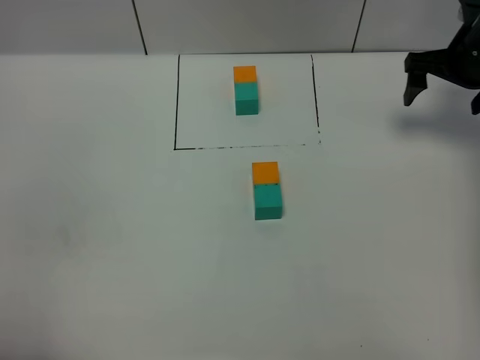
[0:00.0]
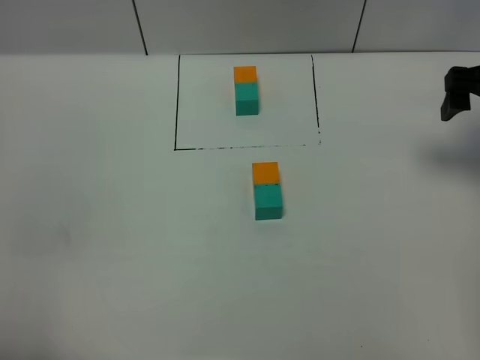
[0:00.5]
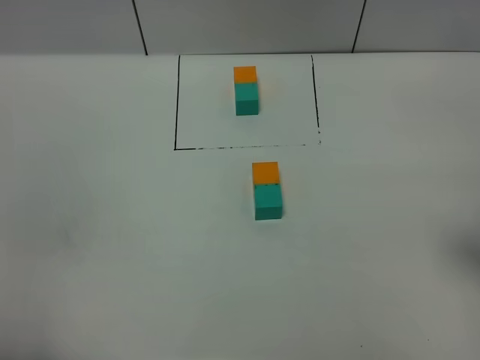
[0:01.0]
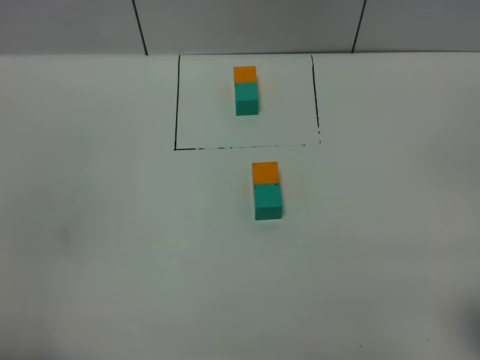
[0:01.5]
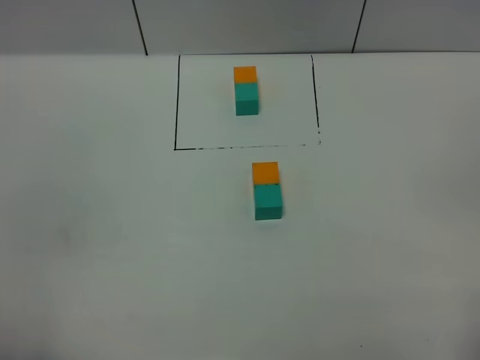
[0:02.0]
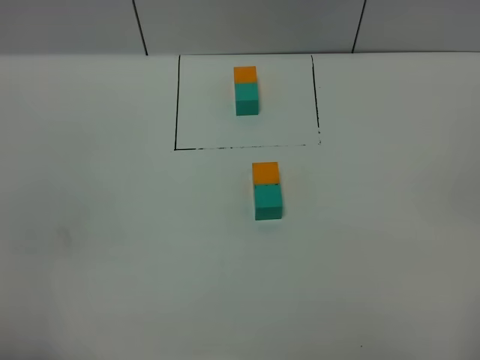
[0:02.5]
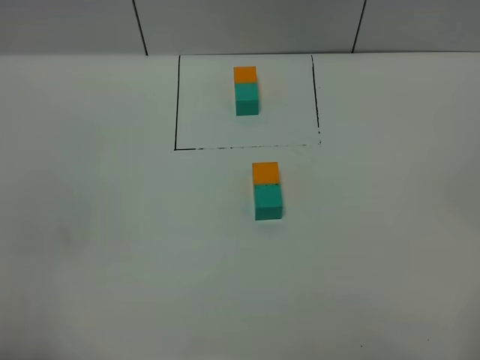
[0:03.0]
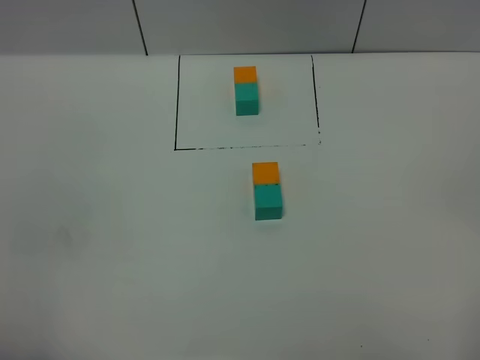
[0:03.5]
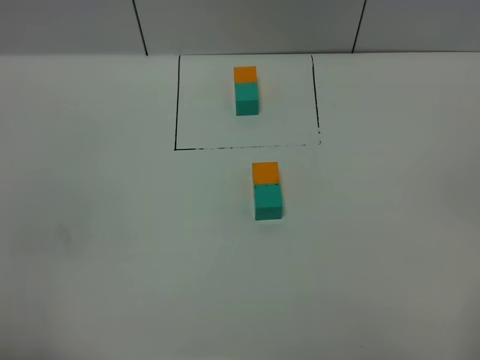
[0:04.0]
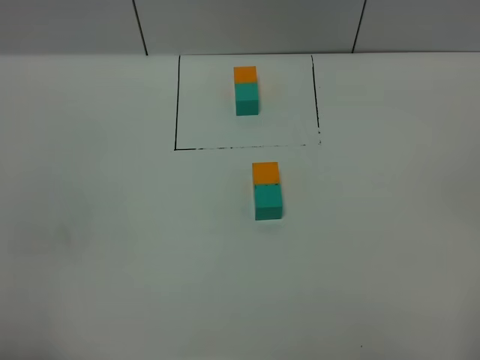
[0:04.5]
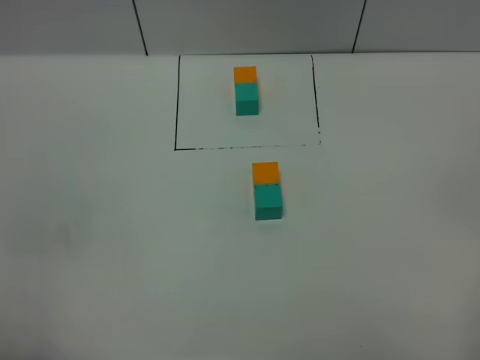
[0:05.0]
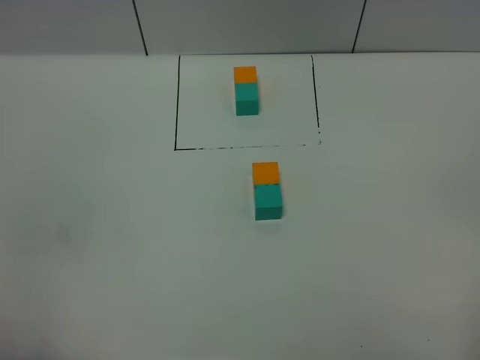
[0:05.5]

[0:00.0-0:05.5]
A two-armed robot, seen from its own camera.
Task of the whole recording: According to the building block template in front, assemble the scattered blocks together.
0:00.0 to 0:02.0: The right gripper moves backward, some 40 cm.
0:03.5 to 0:05.5: The two grippers keep their place.

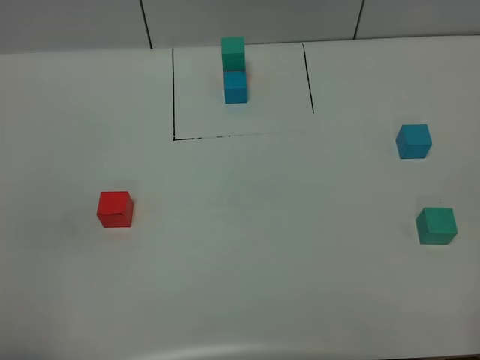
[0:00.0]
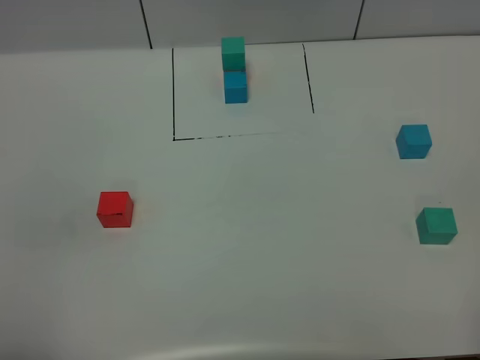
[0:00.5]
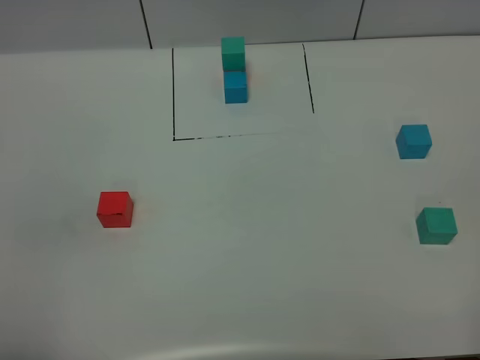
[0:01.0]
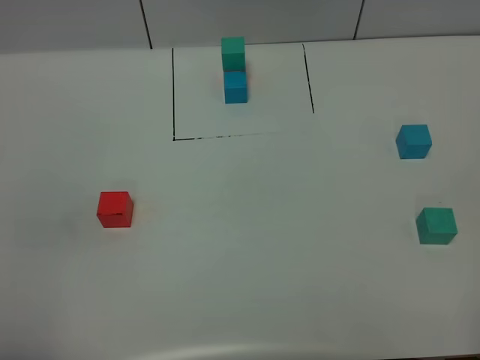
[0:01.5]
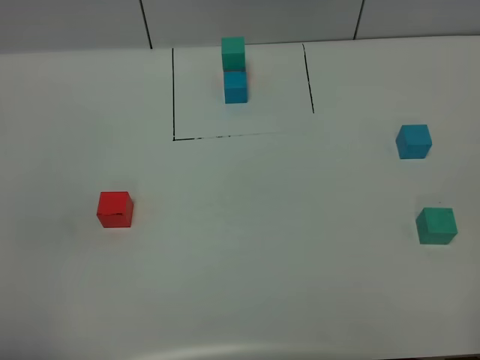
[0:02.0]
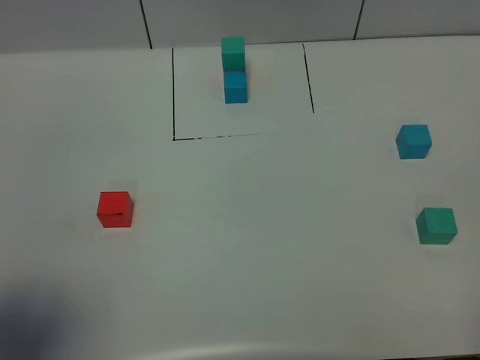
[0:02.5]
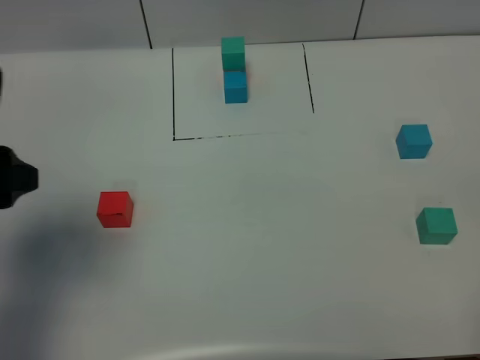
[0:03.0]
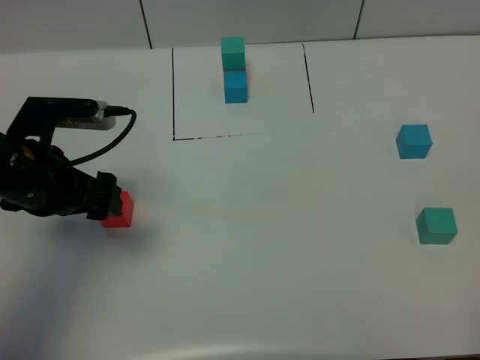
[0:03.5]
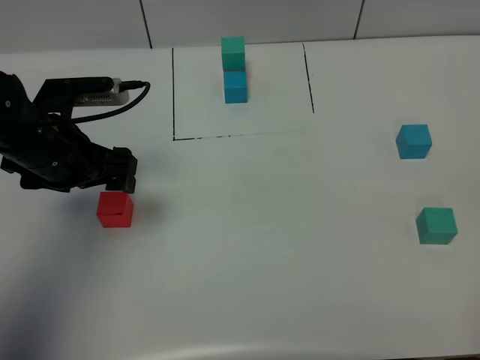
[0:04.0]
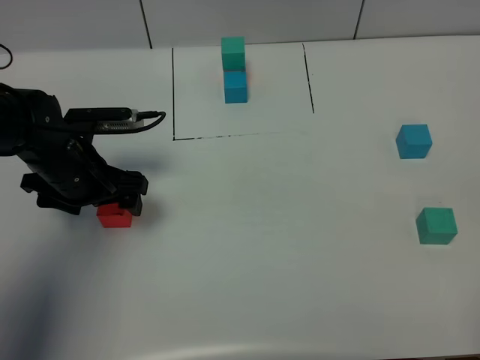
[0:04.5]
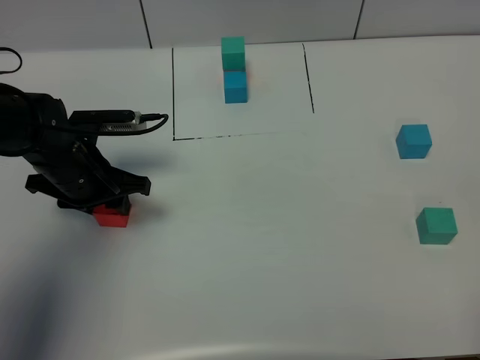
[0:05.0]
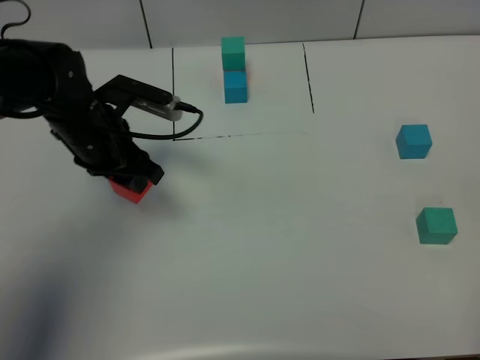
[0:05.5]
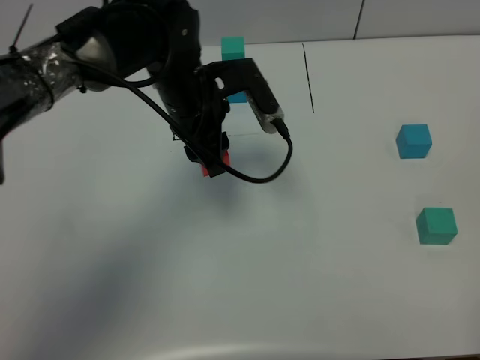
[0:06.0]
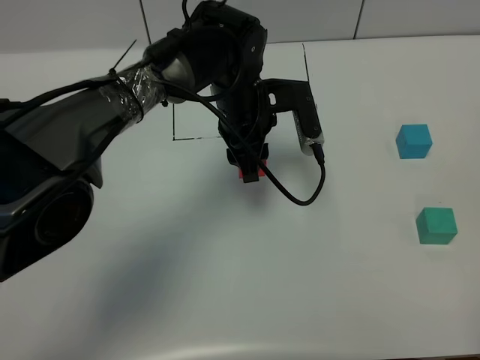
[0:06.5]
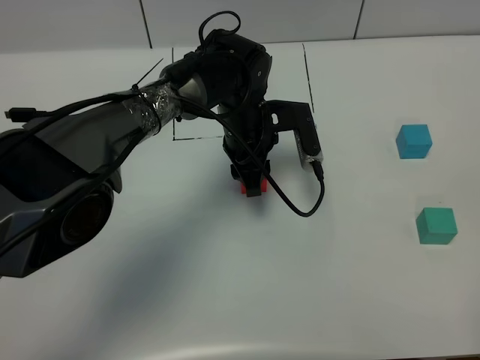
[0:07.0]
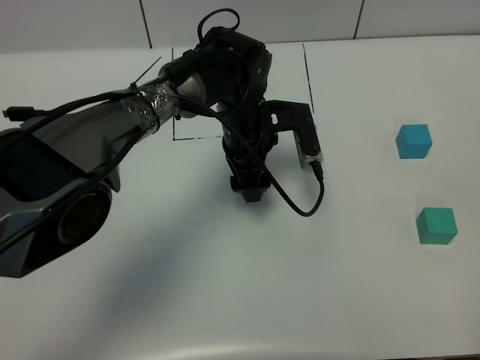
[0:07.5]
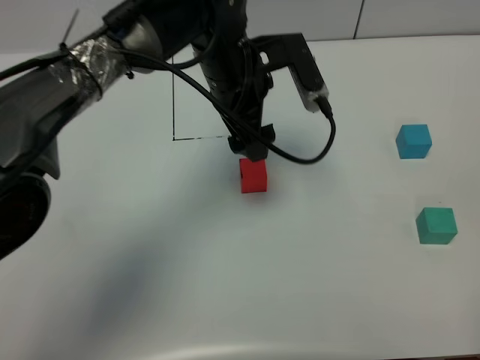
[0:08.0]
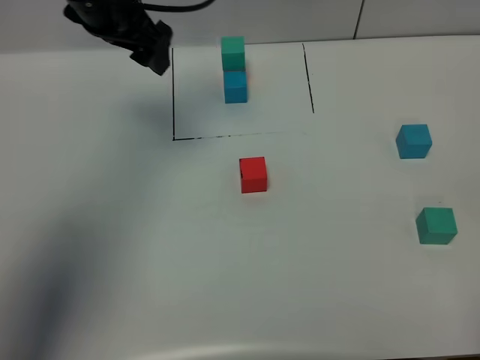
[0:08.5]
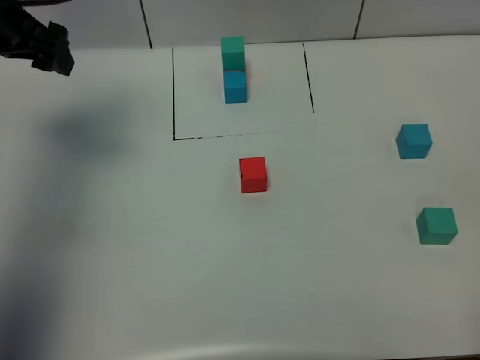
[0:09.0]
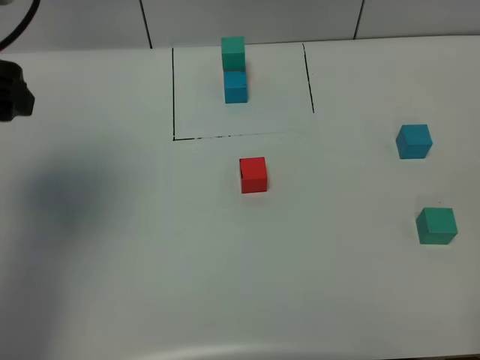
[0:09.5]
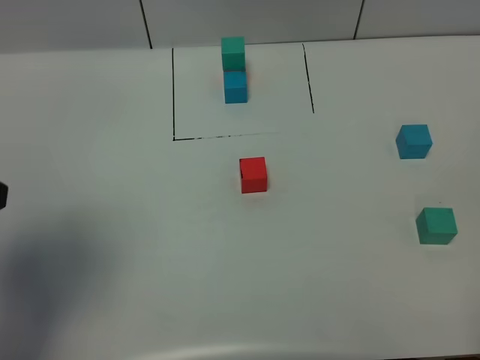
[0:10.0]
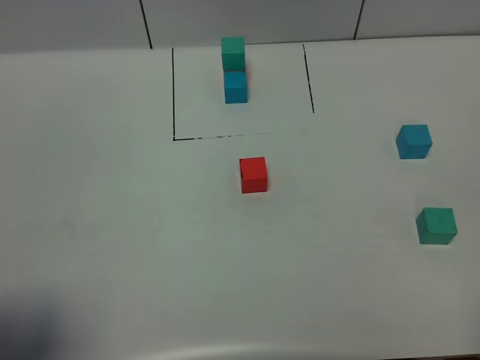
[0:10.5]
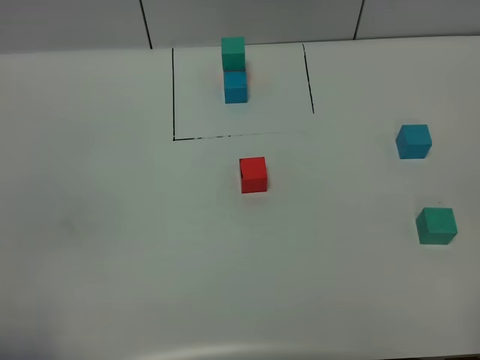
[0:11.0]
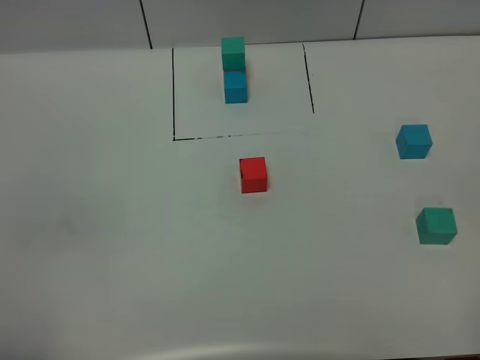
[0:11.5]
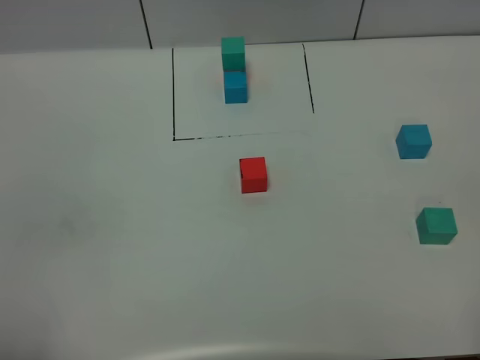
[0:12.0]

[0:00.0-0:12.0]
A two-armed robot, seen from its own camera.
Task of the whole recording: According to the building block template in front, assemble the scattered blocks together.
Step, 0:03.0 to 0:07.5: Put the red cube in the center of the table.
0:02.0 to 0:04.0: The left gripper goes roughly 30 cm forward.
0:04.0 to 0:06.0: The left gripper heads to the right and forward, covering approximately 20 cm, and closes.
0:06.0 to 0:08.0: The left gripper goes downward and returns, about 10 cm each way, and opens its fingers.
0:08.0 to 0:10.0: The left gripper moves to the left and backward, about 35 cm.
0:10.0 to 0:12.0: The left gripper moves backward, about 15 cm.

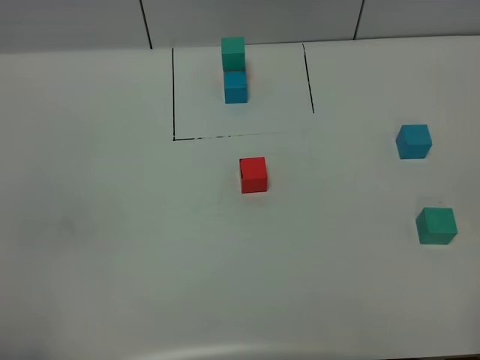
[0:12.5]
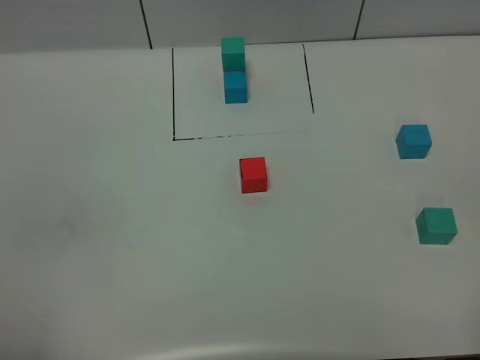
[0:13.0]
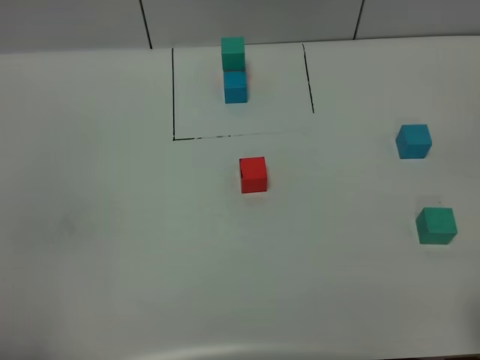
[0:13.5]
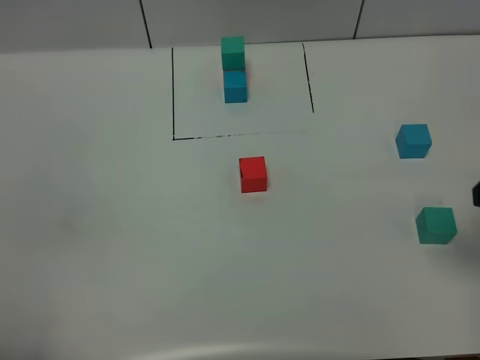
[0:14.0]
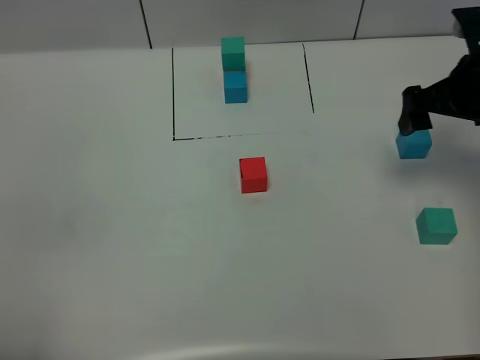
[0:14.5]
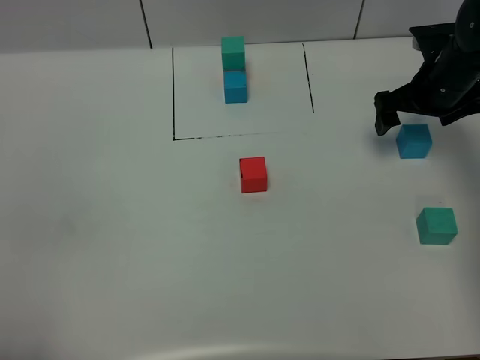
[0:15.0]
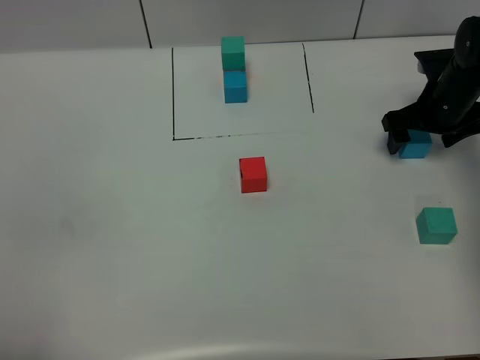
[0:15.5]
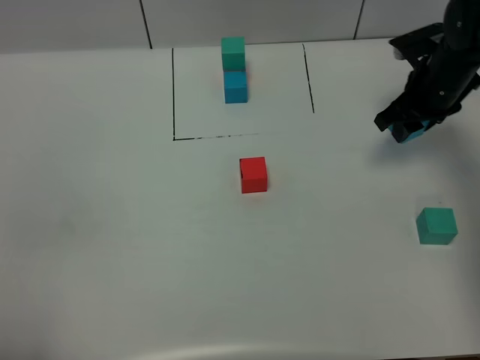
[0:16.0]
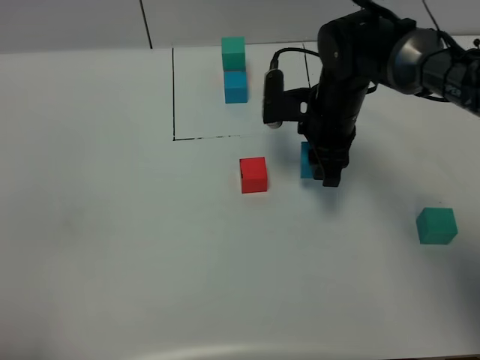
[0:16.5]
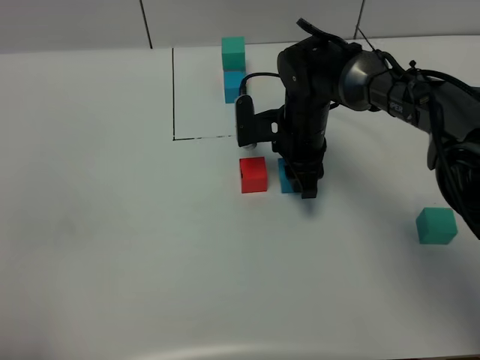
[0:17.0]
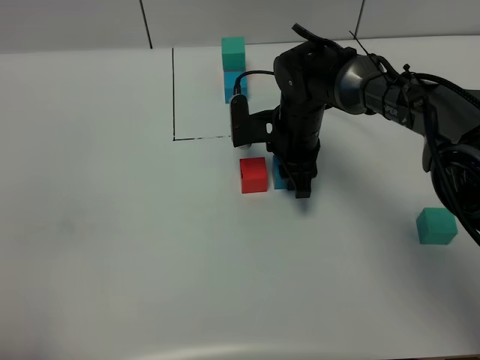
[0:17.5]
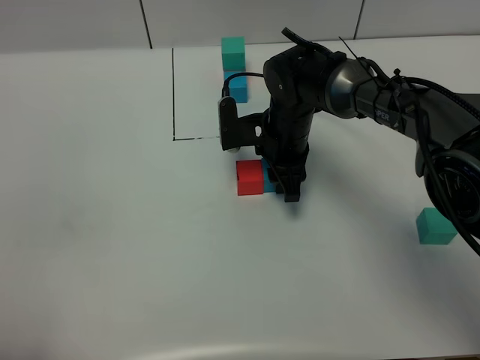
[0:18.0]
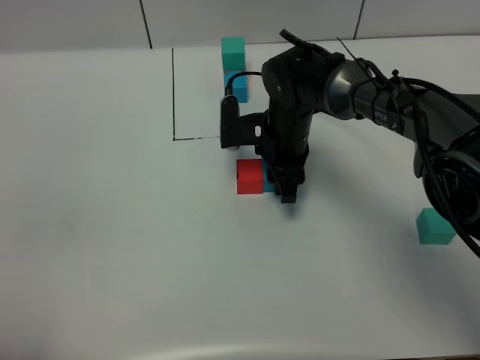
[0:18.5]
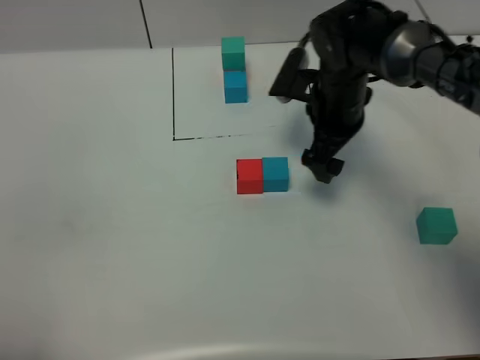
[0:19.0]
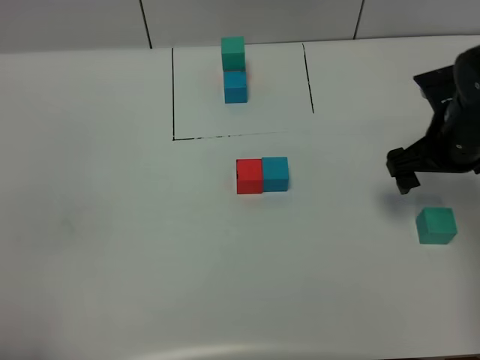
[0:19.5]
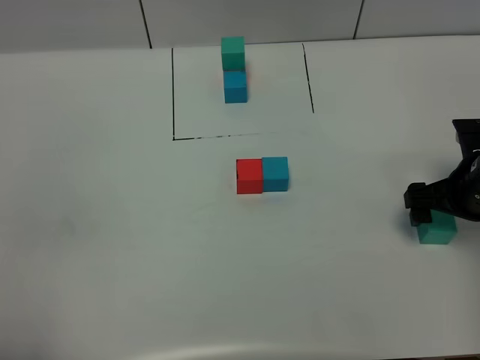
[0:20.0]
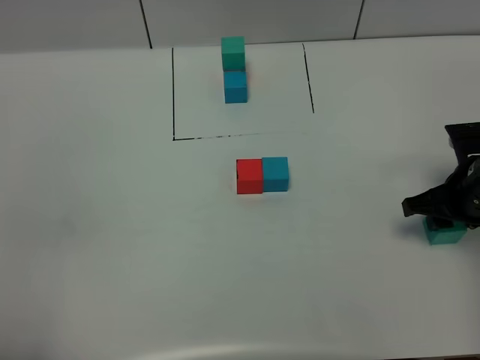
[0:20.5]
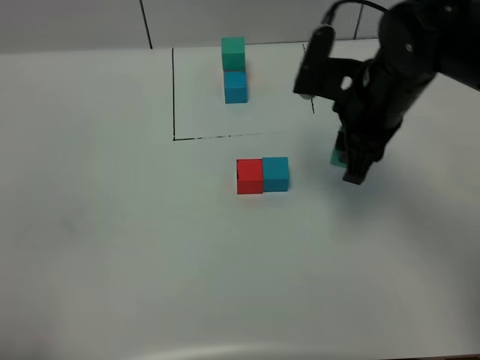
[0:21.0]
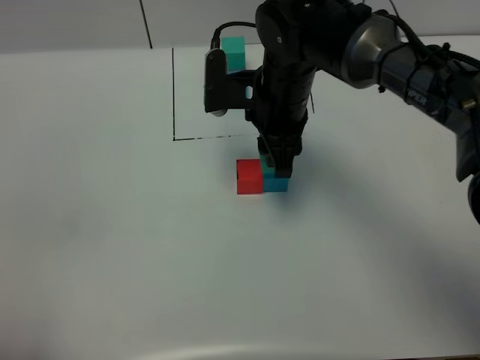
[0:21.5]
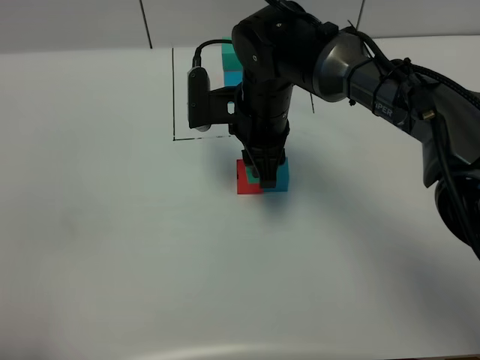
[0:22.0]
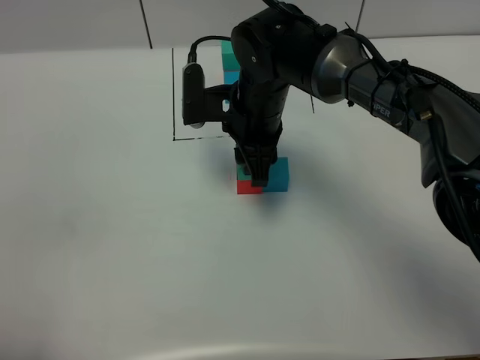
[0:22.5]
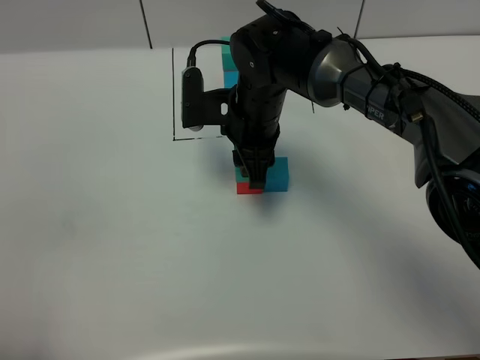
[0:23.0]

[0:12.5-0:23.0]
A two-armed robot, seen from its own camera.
Task of the whole recording: According to the building block template in front, assemble the scattered blocks together.
Step, 0:12.5 to 0:18.5: Put the blue cube on the right of the red cube.
0:12.5 to 0:14.5: The right gripper moves forward, roughly 35 cm.
0:14.5 to 0:16.5: The right gripper goes approximately 20 cm to the left and downward, and closes its fingers.
0:16.5 to 0:19.0: The right gripper opens up.
0:19.0 to 0:21.0: The right gripper travels upward and backward by roughly 10 cm, reaches approximately 15 cm to the right, then returns, and closes its fingers.
0:21.0 to 0:23.0: The right gripper moves to the left and downward, approximately 15 cm.
